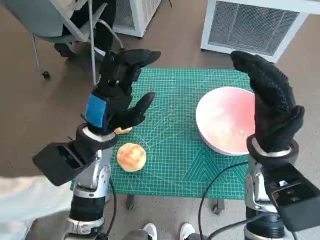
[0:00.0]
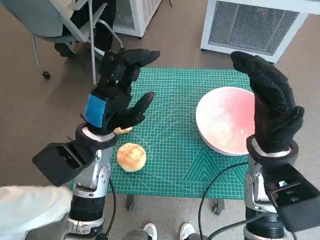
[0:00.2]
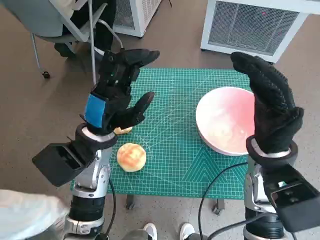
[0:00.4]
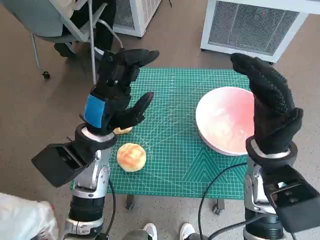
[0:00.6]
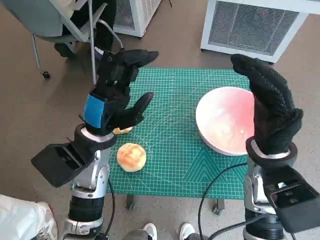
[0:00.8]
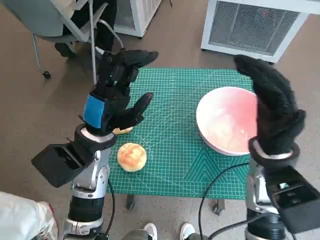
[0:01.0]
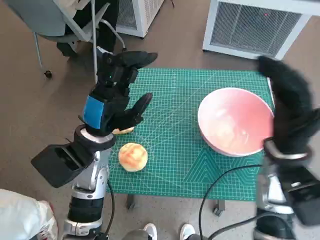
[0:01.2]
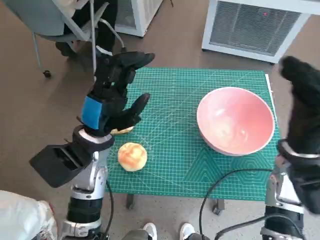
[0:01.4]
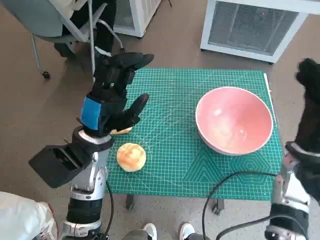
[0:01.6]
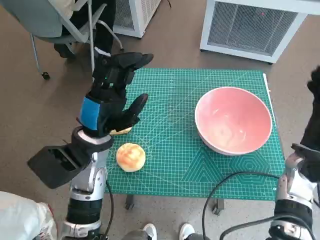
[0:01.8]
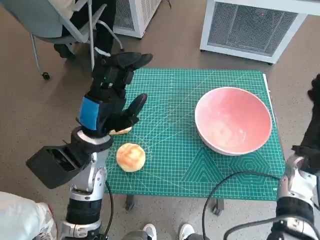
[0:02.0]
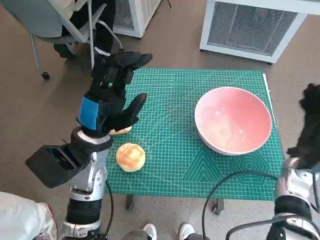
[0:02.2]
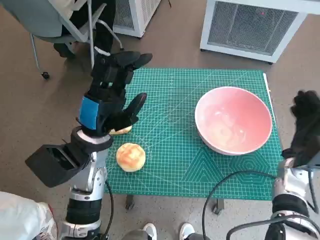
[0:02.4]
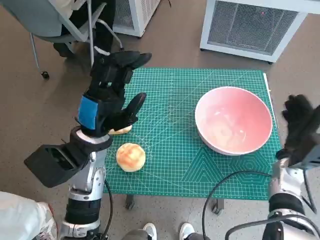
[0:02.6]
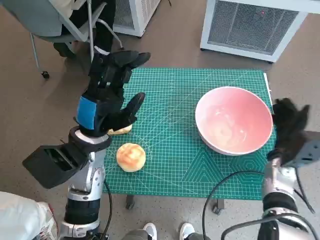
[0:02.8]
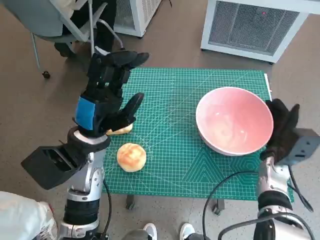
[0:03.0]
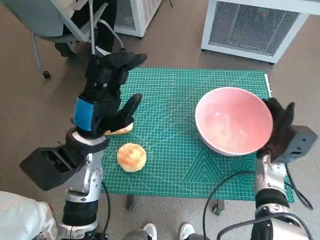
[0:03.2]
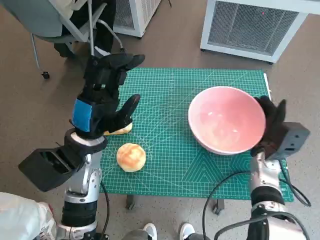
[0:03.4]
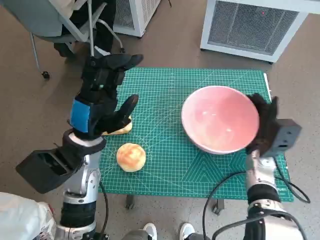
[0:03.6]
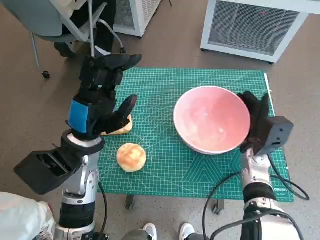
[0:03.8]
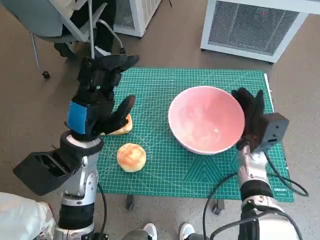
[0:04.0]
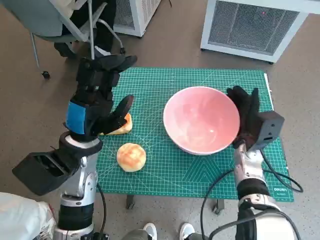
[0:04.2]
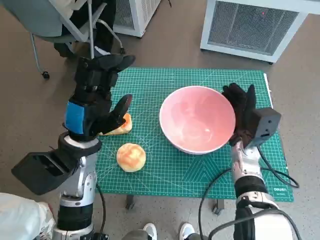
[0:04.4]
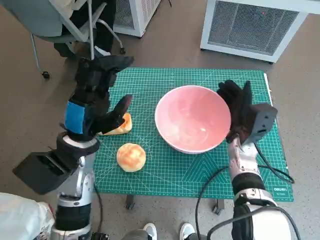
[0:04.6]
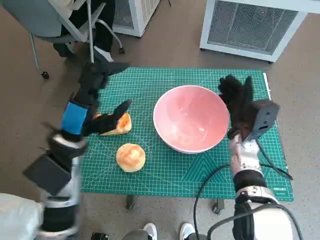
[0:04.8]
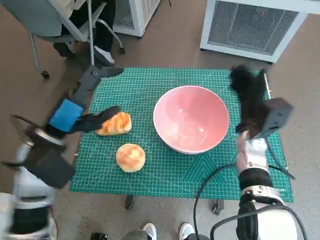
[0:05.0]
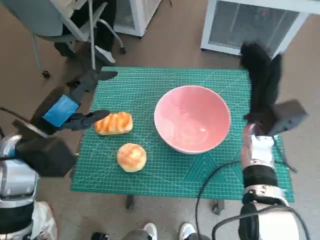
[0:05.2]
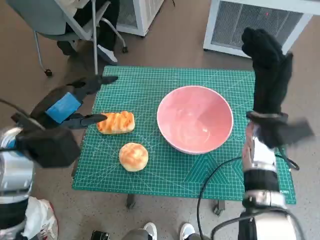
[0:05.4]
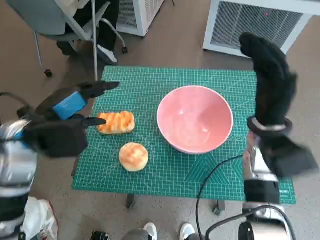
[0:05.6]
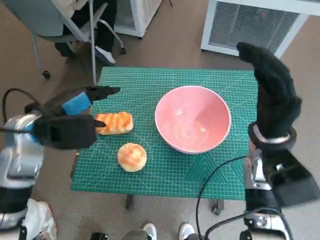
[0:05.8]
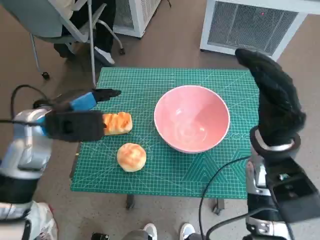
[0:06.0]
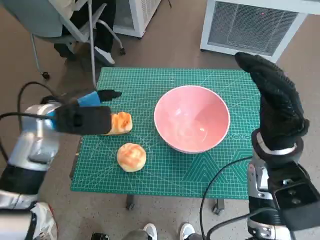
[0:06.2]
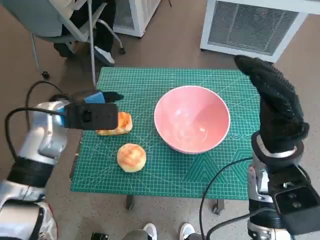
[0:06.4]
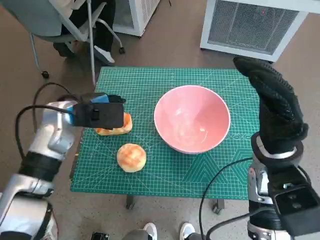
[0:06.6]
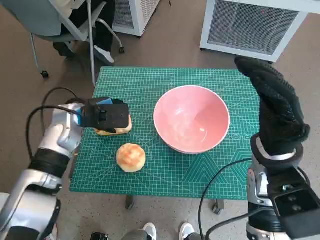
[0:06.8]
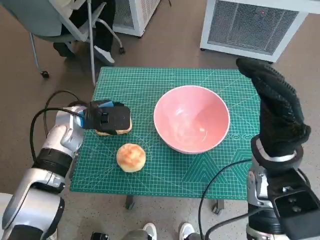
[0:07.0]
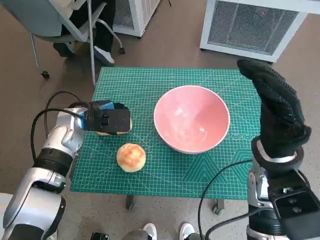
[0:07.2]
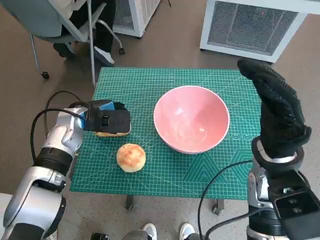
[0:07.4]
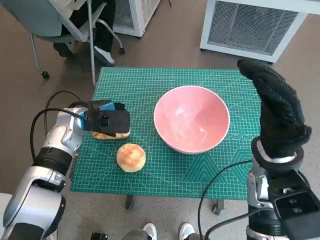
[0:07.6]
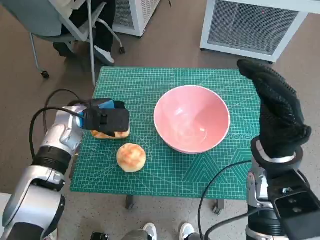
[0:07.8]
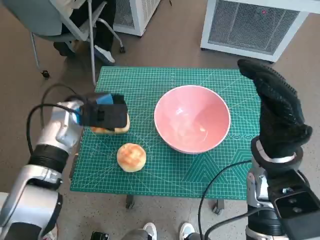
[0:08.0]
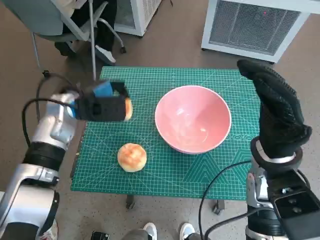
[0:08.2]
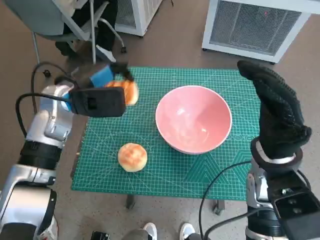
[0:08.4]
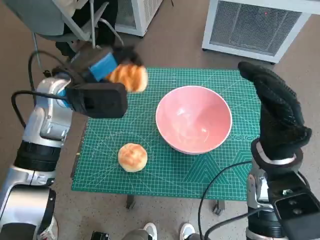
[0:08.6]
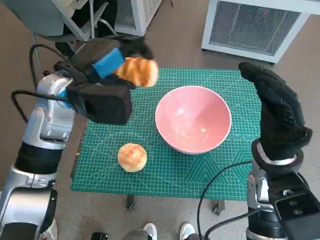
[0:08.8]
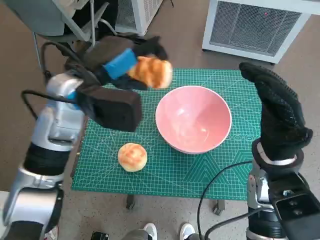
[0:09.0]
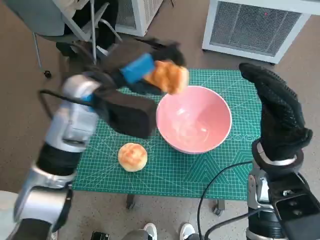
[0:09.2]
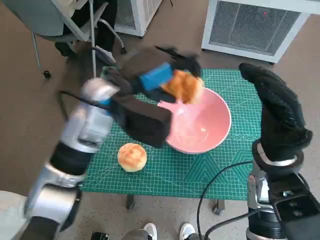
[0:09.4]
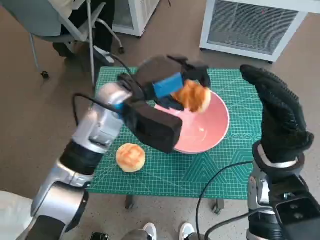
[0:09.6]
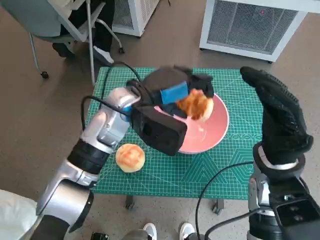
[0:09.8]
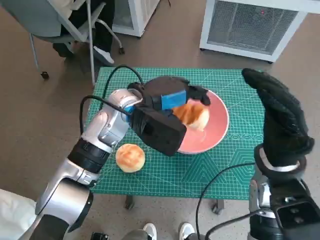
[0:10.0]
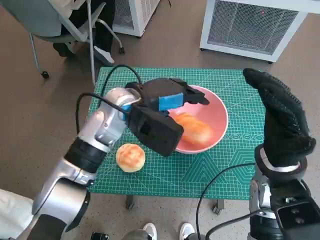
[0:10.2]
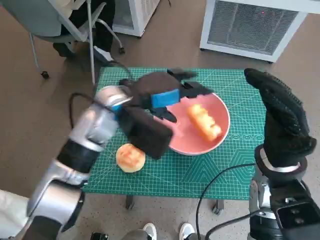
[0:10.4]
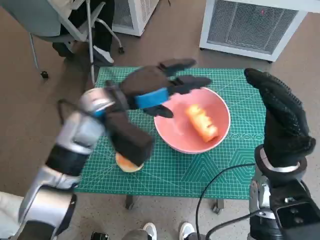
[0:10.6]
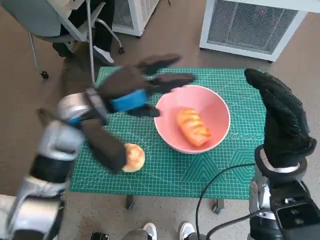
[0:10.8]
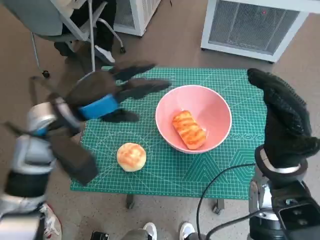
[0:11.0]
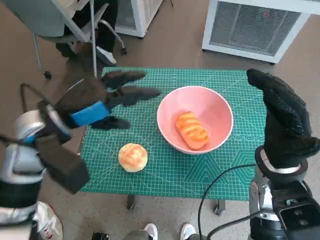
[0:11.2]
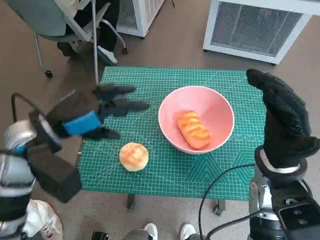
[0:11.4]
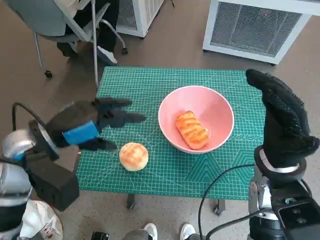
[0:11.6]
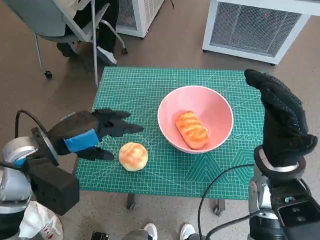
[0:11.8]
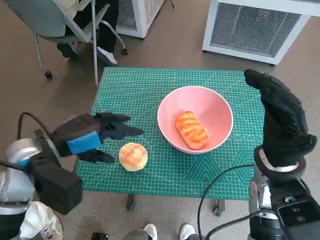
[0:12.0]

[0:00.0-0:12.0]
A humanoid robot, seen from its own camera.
Task of the whole recording: Push the bowl to the center of the table and put the bread into the bowl.
Step, 0:00.0 to 0:05.0: Move the pink bowl to the center of table with right hand.
Step, 0:05.2 to 0:07.6: Grasp the long bread with left hand.
Step, 0:07.8 to 0:10.2: Place the long bread in pink bowl with left hand.
0:01.6 to 0:03.0: The right hand goes roughly 10 cm downward.
0:03.0 to 0:04.4: The right hand heads to the left, covering about 5 cm.
0:04.4 to 0:06.0: The right hand goes roughly 10 cm upward and backward. Meanwhile the left hand heads to the left, covering roughly 5 cm.
0:06.0 to 0:07.6: The left hand moves downward and forward, roughly 10 cm.
0:07.6 to 0:09.0: The left hand moves upward and to the right, about 15 cm.
0:09.0 to 0:10.4: The left hand heads to the right, covering roughly 5 cm.
0:10.4 to 0:12.0: The left hand moves to the left and backward, roughly 15 cm.

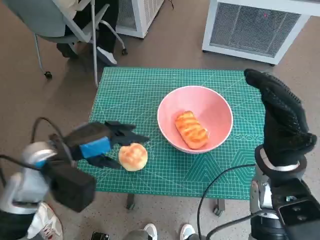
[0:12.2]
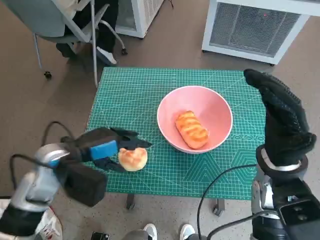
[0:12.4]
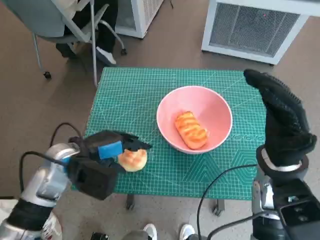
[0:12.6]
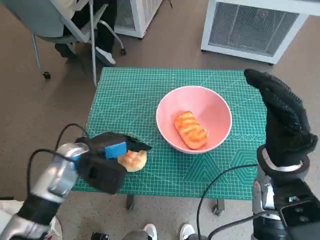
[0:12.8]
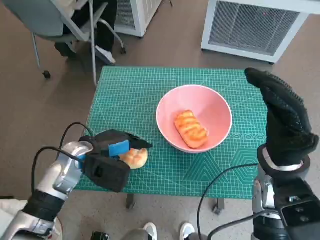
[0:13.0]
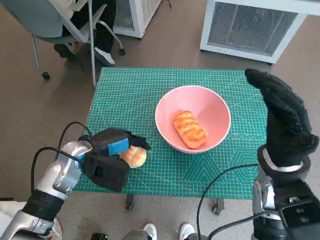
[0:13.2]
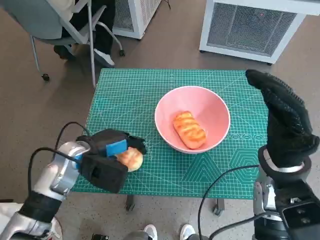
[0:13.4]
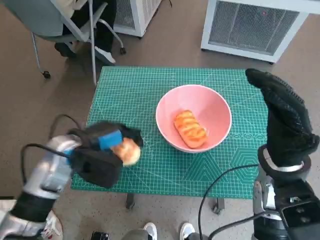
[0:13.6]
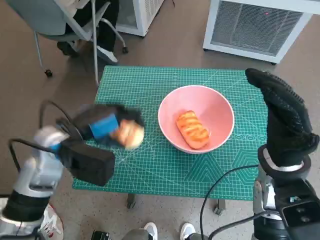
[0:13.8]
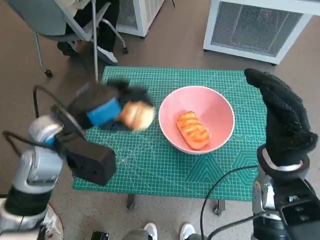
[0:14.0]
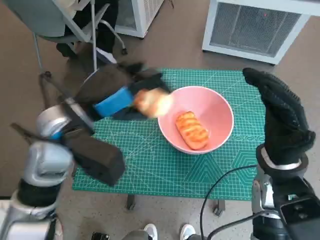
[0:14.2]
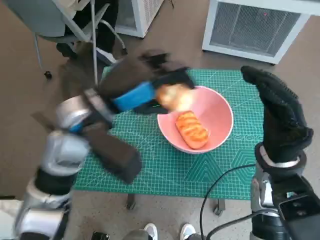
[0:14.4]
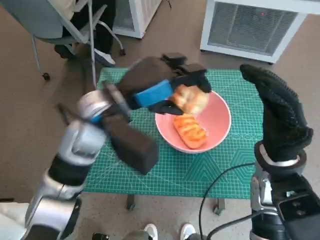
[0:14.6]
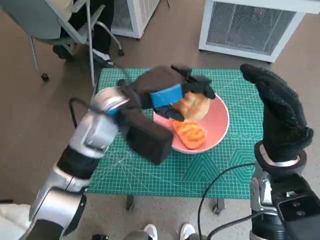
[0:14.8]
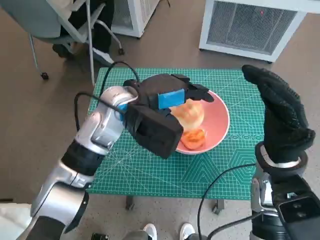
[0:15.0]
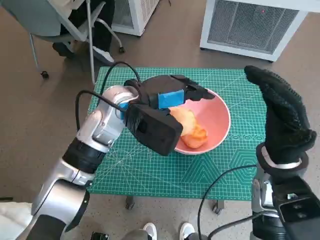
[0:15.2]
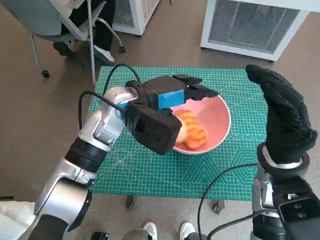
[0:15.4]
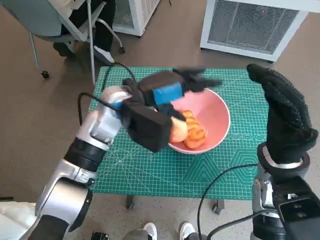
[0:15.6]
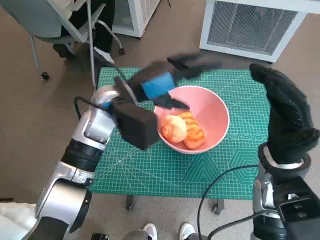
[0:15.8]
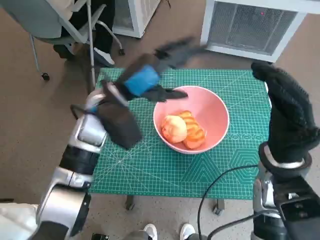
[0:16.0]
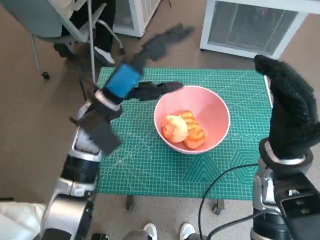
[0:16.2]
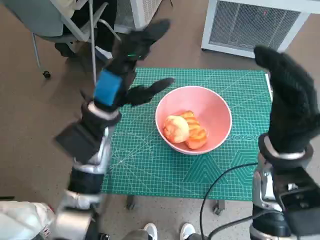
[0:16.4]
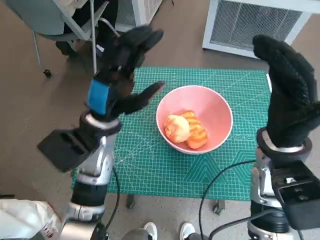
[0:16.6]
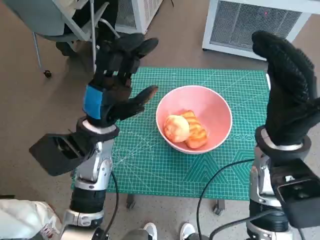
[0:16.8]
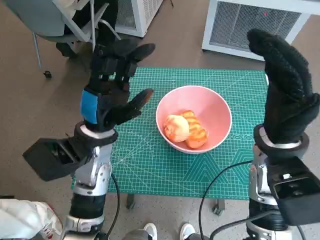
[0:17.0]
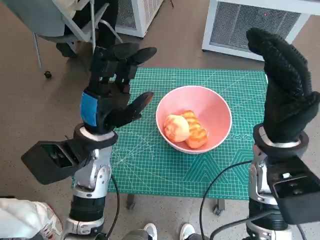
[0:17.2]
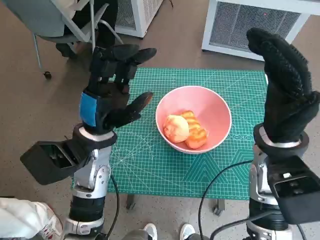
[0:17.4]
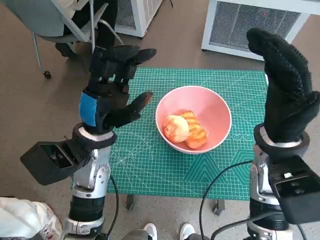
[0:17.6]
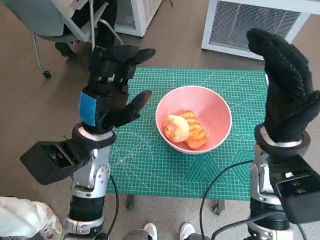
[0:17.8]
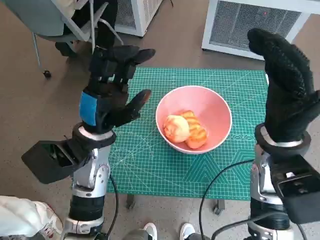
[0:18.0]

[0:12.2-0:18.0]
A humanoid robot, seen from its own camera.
Task of the whole recording: Push the bowl to the center of the table and put the bread into the bowl.
Step, 0:13.4 to 0:16.2: Place the round bread in pink bowl with left hand.
0:12.2 to 0:13.6: The left hand changes place by roughly 5 cm.
0:13.6 to 0:15.0: The left hand shifts about 15 cm to the right, upward and forward.
0:15.0 to 0:16.6: The left hand shifts by about 10 cm.
0:16.6 to 0:18.0: The hands move only a little.

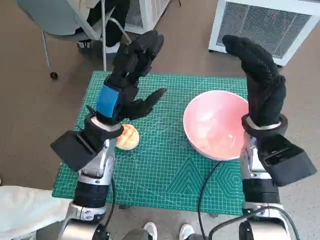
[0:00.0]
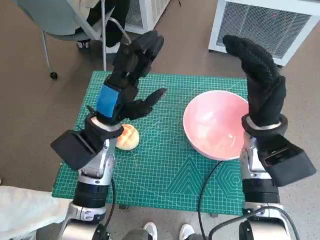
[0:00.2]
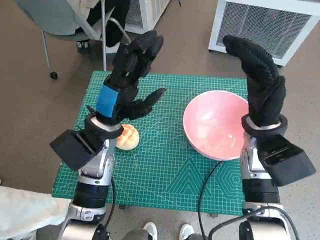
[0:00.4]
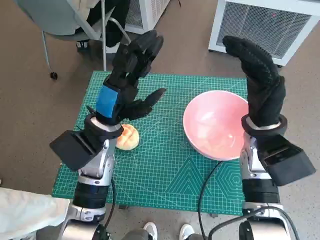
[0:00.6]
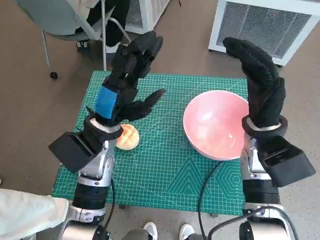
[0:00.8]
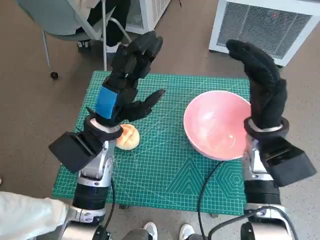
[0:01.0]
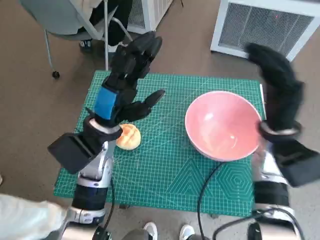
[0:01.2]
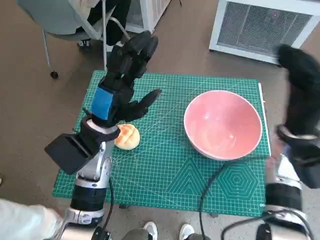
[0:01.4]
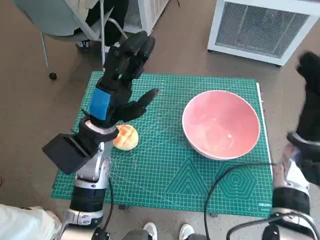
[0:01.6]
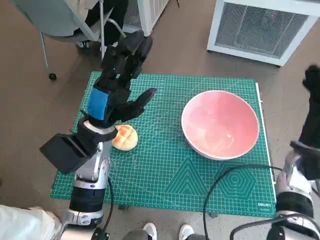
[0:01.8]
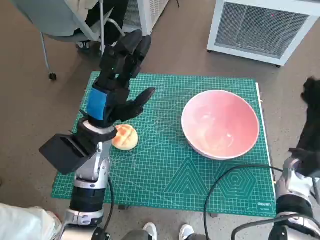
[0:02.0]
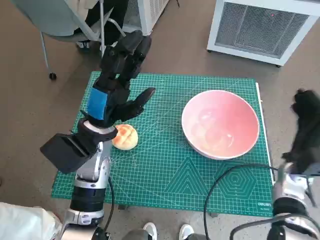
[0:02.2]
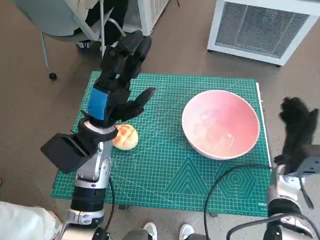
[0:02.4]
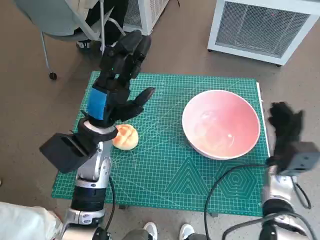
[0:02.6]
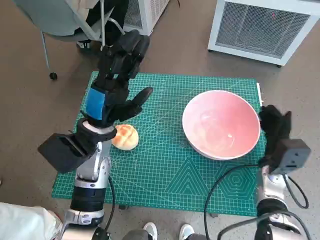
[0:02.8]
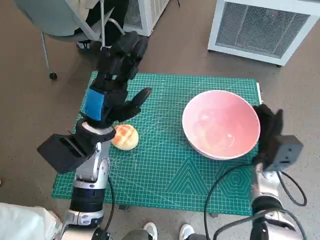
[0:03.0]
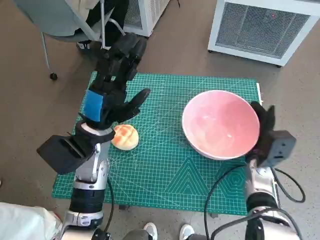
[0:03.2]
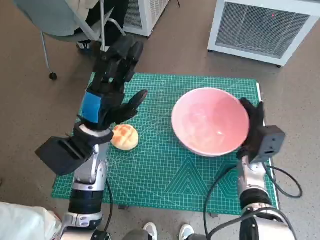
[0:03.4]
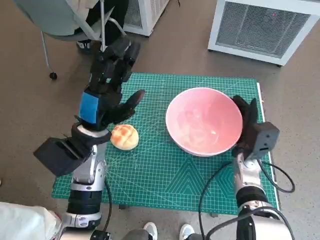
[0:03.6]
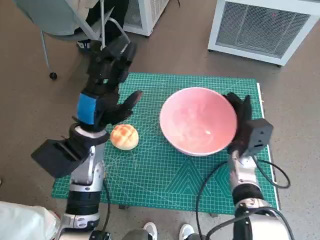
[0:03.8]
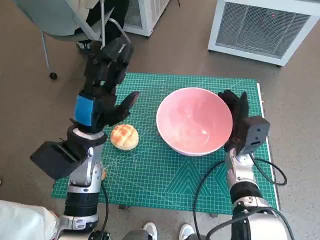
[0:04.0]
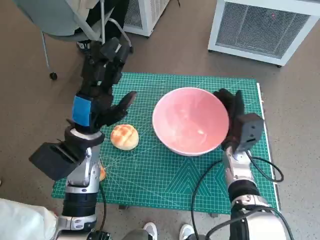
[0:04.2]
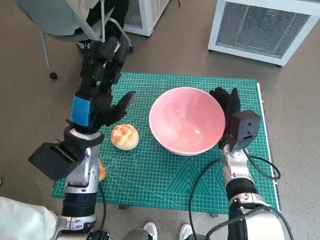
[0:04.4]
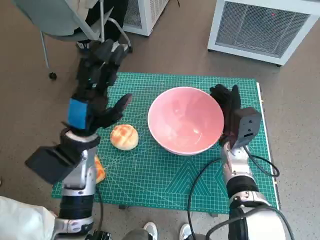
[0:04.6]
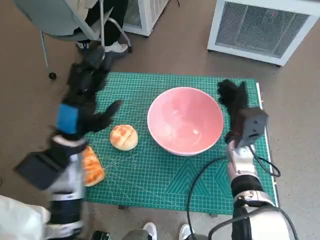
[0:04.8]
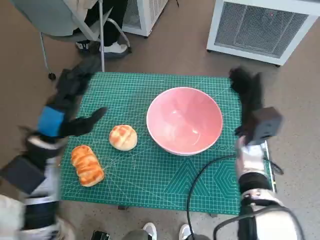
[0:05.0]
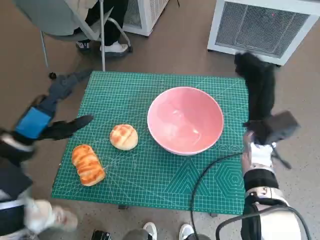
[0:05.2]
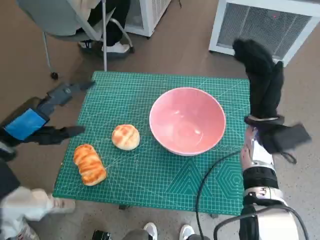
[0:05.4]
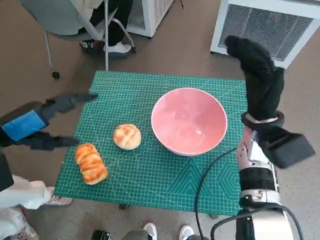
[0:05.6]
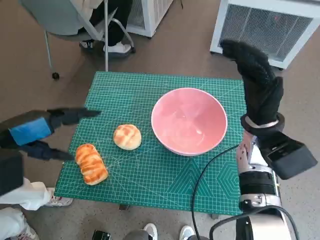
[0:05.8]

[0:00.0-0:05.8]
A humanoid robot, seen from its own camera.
Task of the whole recording: Push the bowl to the center of the table and put the bread into the bowl.
Step, 0:00.0 to 0:04.8: Move the pink bowl to the center of table with right hand.
0:01.4 to 0:02.8: The right hand travels downward by some 10 cm.
0:02.8 to 0:04.4: The right hand travels to the left by about 10 cm.
0:04.4 to 0:05.8: The left hand moves to the left, upward and backward, about 15 cm. Meanwhile the right hand heads upward, covering roughly 10 cm.
